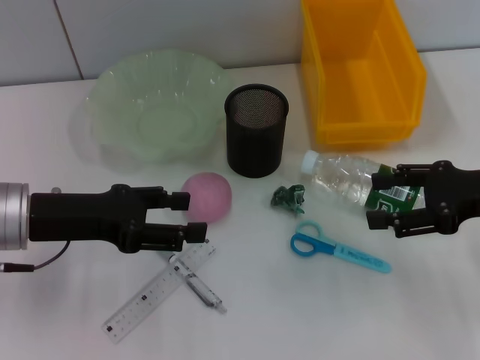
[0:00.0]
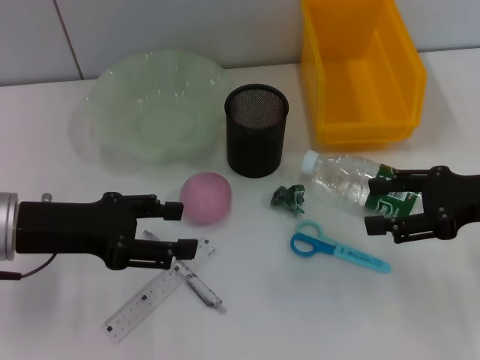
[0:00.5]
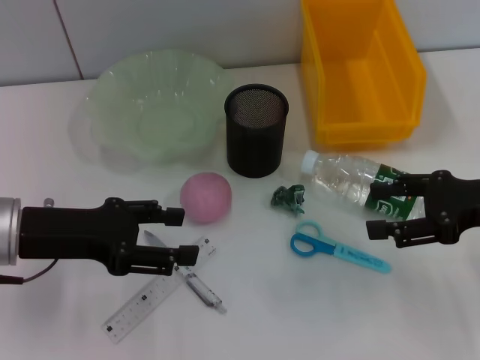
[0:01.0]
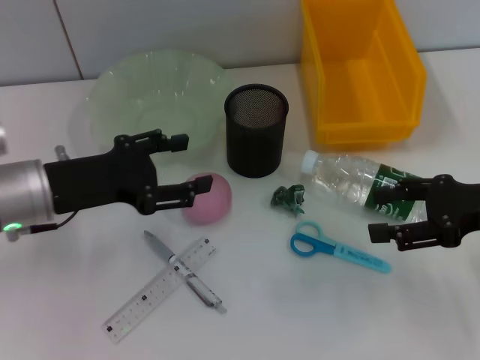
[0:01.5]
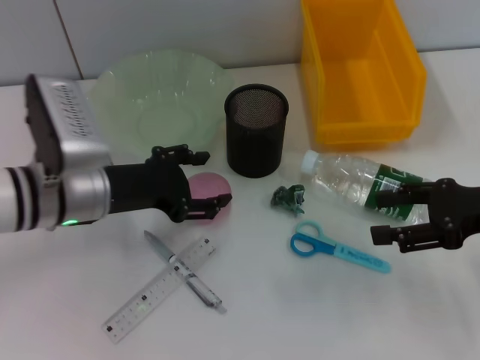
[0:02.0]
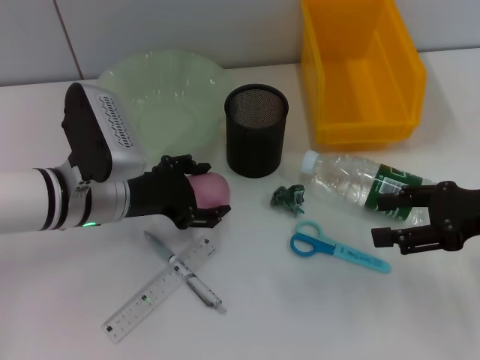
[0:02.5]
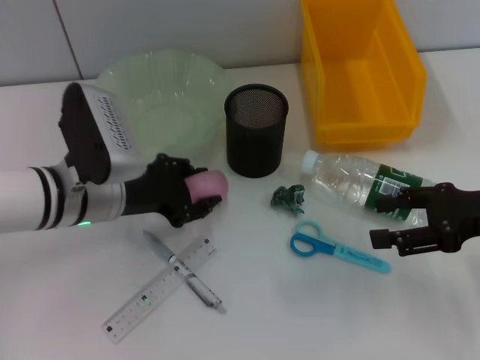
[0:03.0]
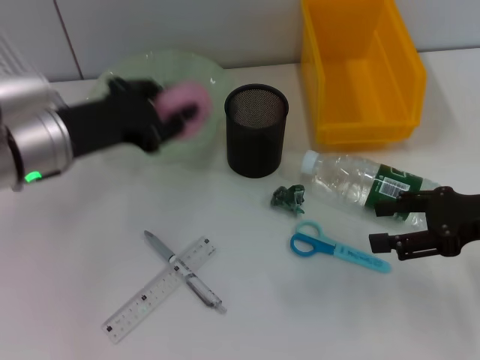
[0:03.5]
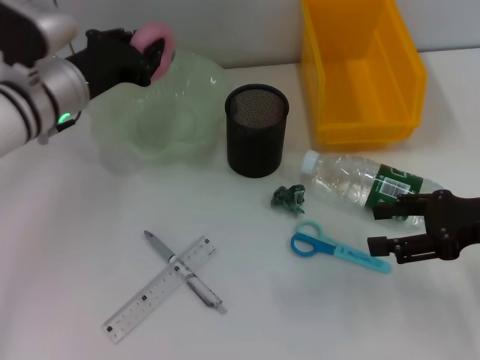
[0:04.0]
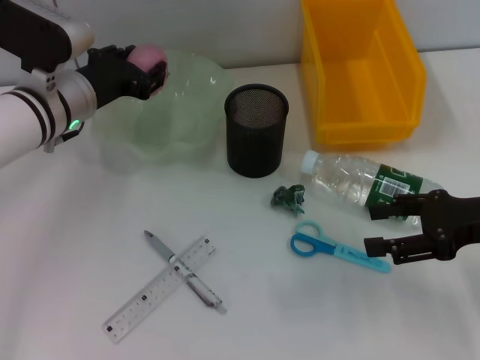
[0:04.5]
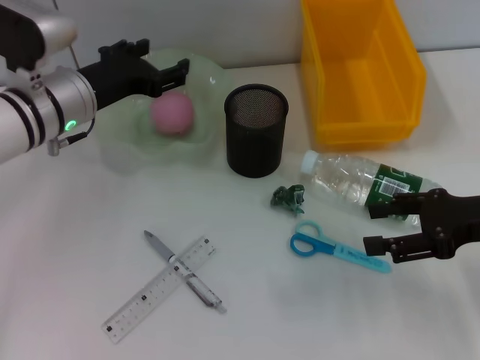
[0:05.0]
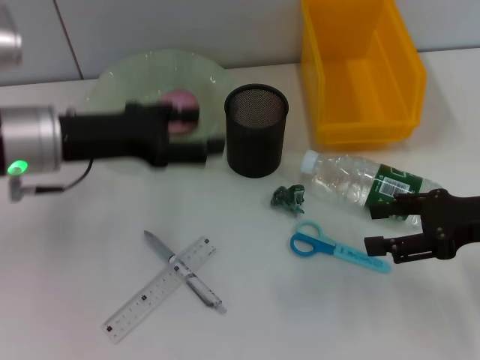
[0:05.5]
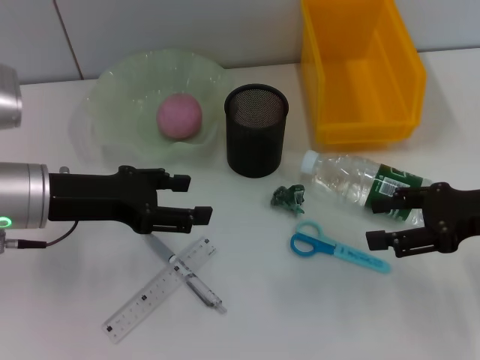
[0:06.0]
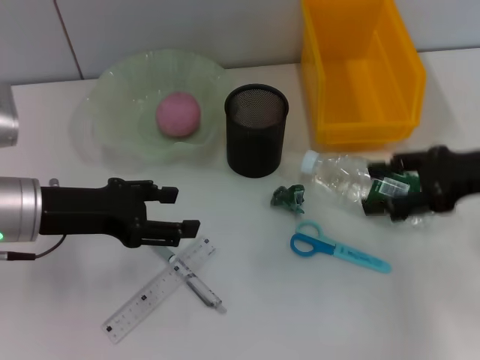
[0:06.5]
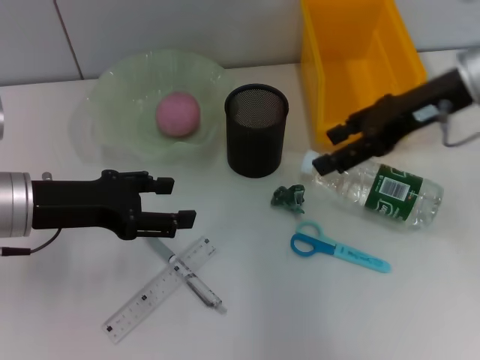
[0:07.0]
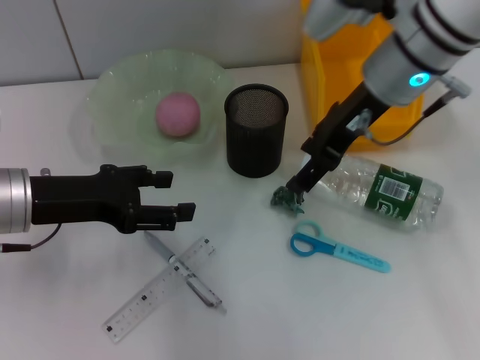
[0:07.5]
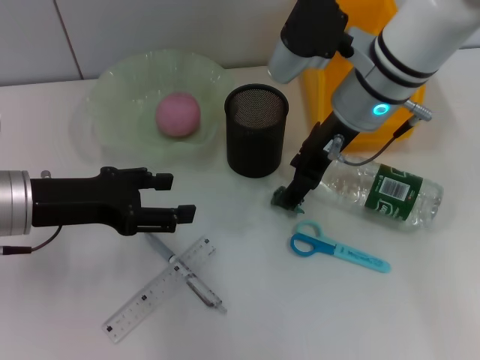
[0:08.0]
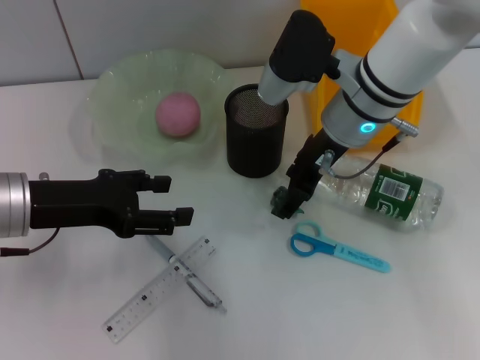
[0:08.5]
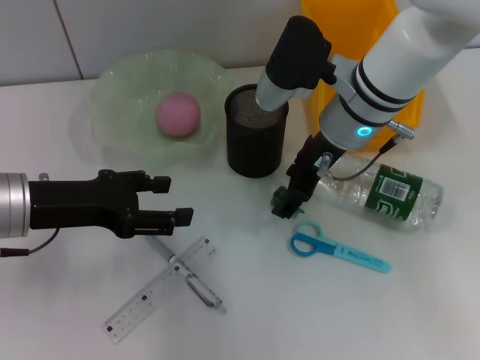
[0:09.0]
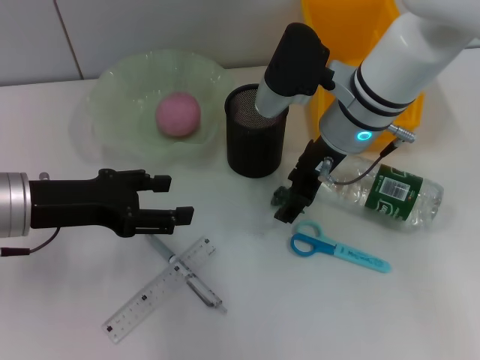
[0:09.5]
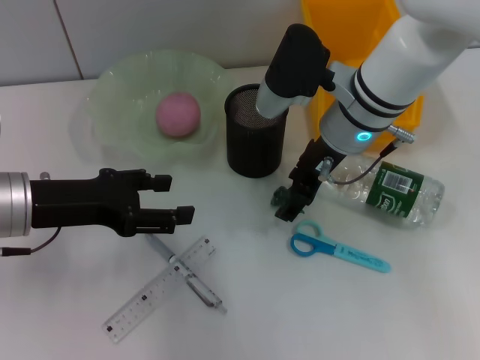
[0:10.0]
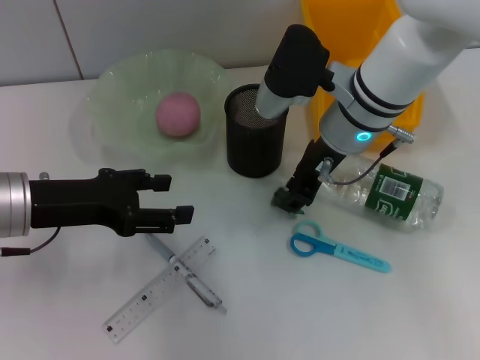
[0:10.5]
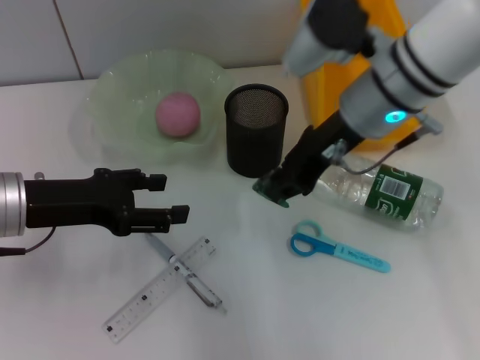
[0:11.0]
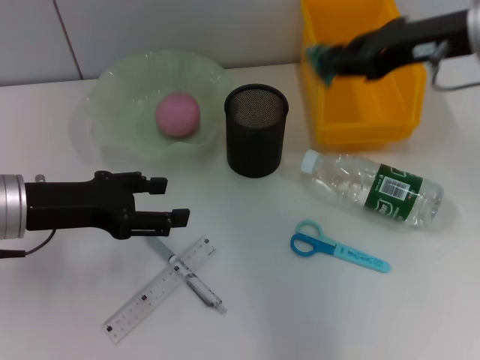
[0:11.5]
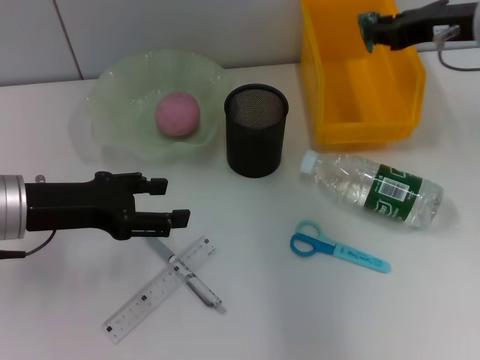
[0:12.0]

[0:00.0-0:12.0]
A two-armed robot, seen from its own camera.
Step, 0:00.0 to 0:02.5: Grab the peach with the left hand.
Step, 0:03.0 to 0:04.5: Place the peach into the fruit bowl with the left hand.
Step, 0:05.0 to 0:10.5: Grab the plastic with the right hand.
0:00.0 to 0:02.0: The left gripper goes approximately 5 cm to the right.
0:02.0 to 0:04.0: The left gripper heads forward, covering about 5 cm, and closes its fingers.
0:04.0 to 0:06.0: The left gripper shifts approximately 10 cm backward, and opens.
0:06.0 to 0:08.0: The right gripper heads to the left and forward, covering about 20 cm.
0:08.0 to 0:10.0: The grippers make only small movements.
0:10.0 to 0:12.0: The right gripper shifts approximately 15 cm to the right and upward, and closes up.

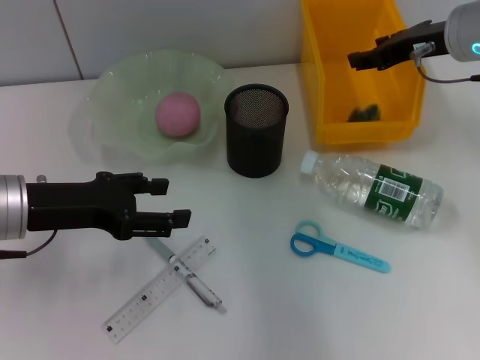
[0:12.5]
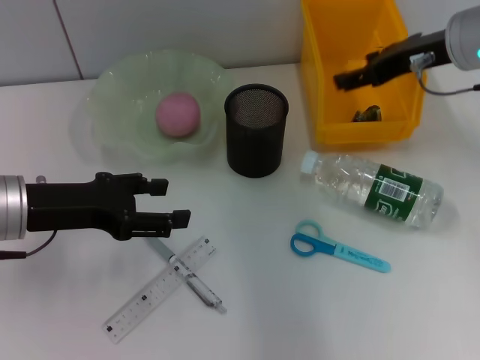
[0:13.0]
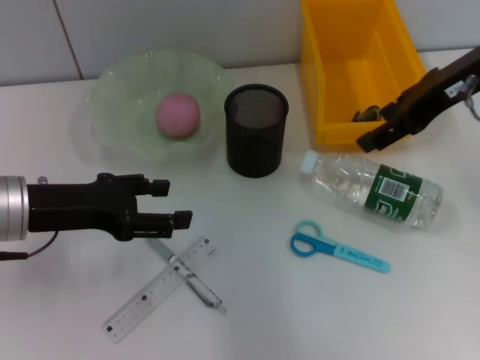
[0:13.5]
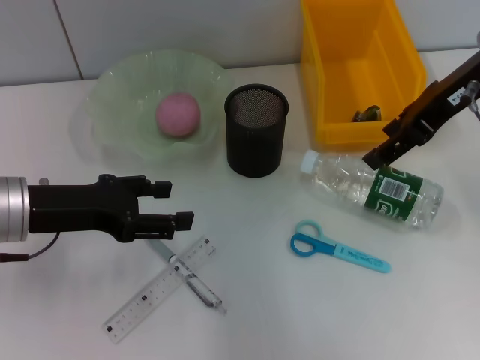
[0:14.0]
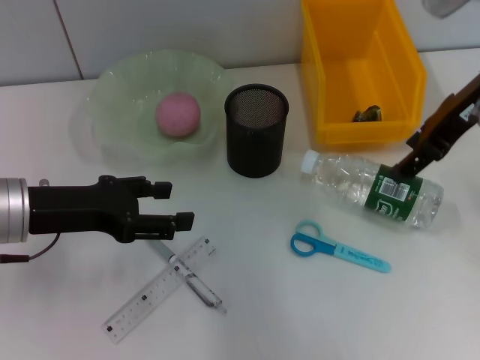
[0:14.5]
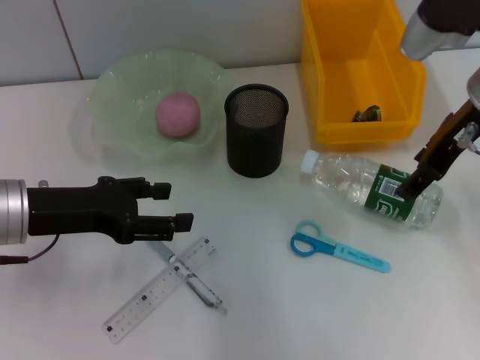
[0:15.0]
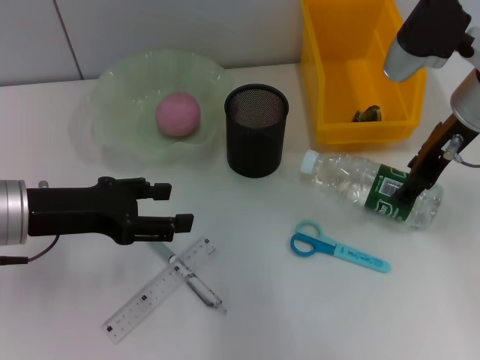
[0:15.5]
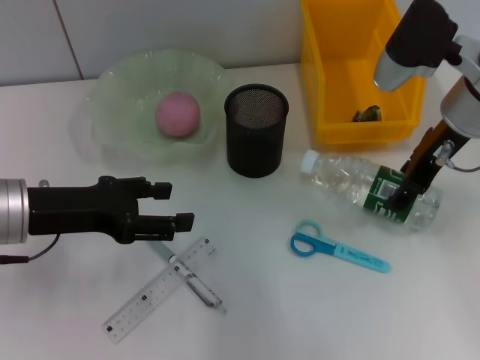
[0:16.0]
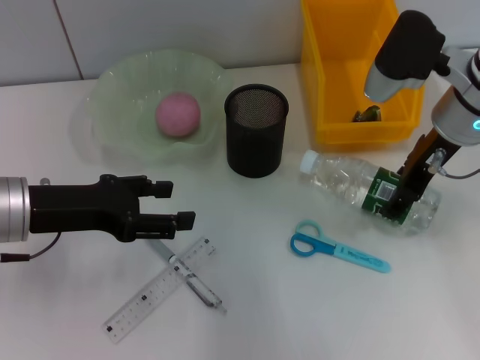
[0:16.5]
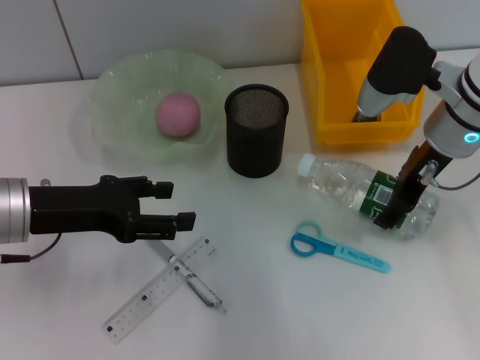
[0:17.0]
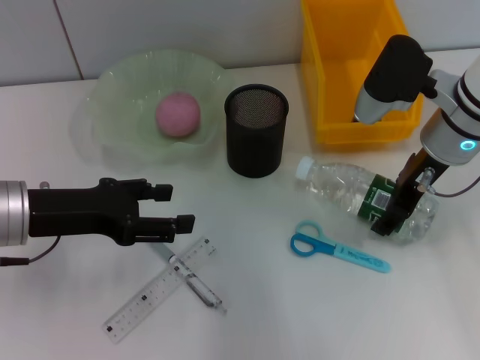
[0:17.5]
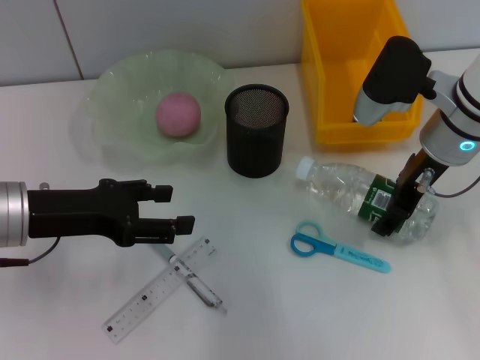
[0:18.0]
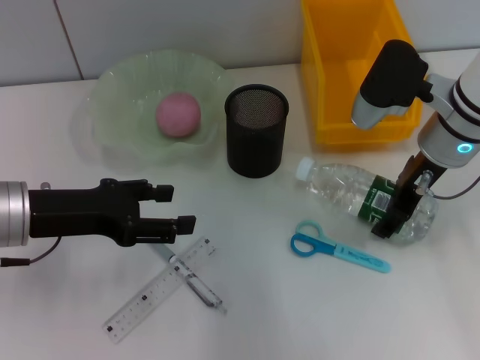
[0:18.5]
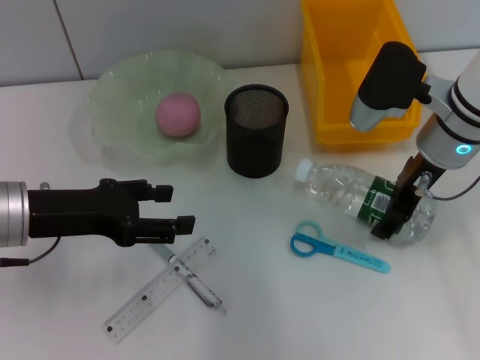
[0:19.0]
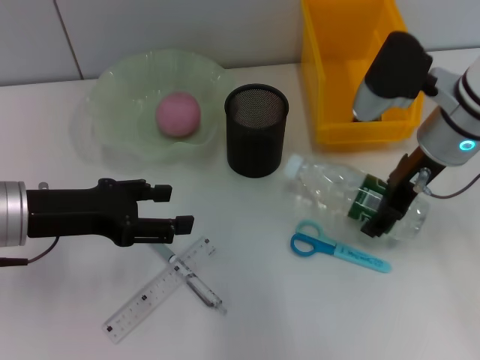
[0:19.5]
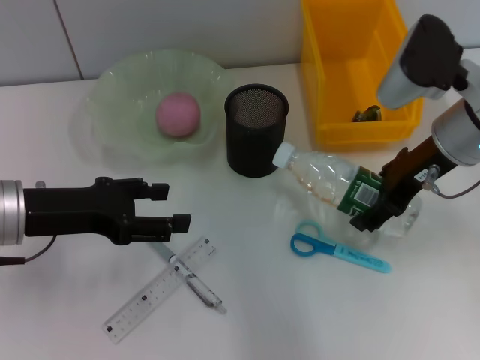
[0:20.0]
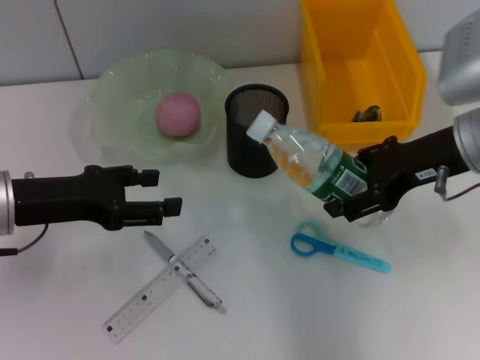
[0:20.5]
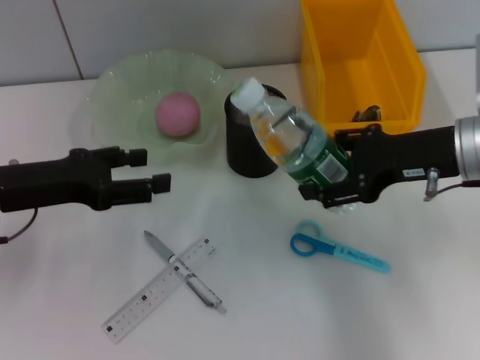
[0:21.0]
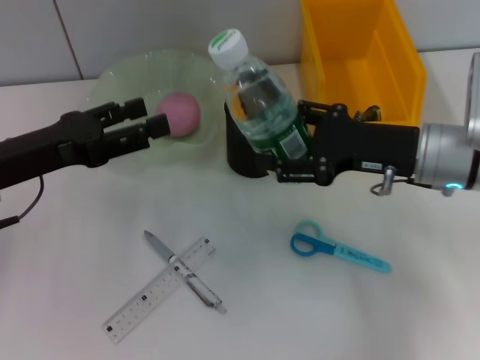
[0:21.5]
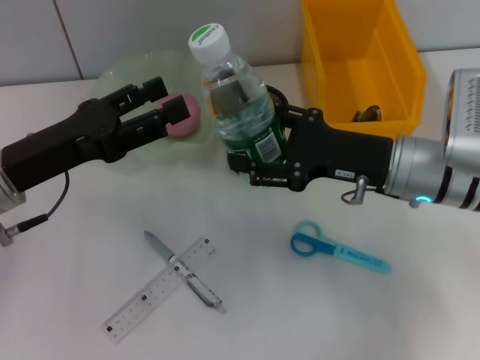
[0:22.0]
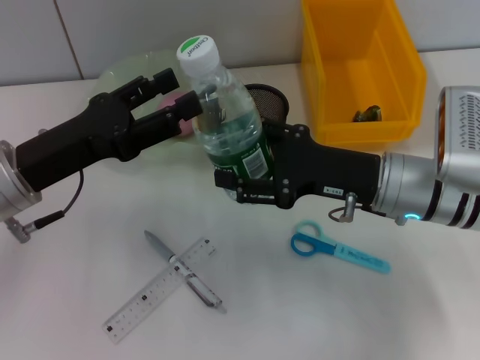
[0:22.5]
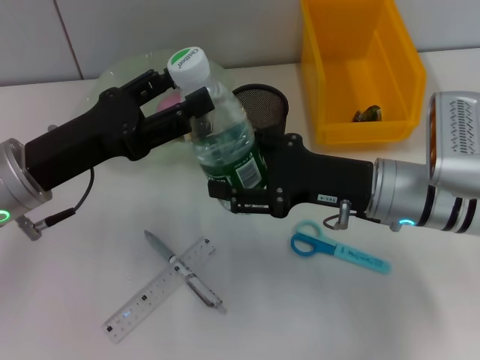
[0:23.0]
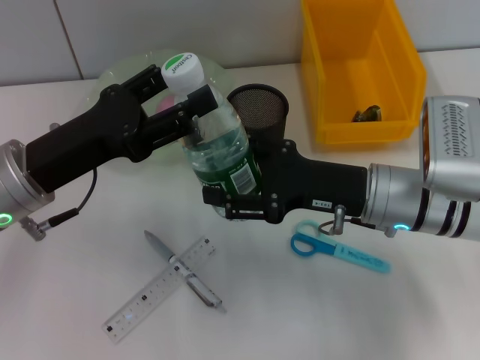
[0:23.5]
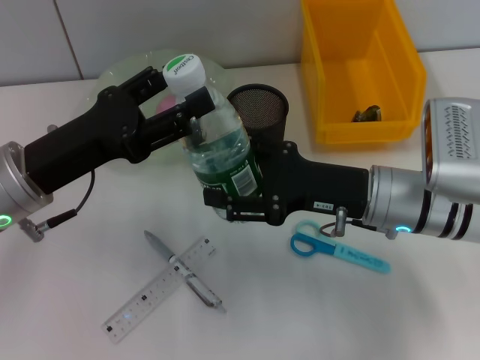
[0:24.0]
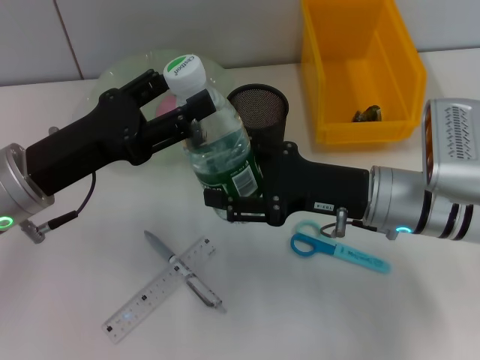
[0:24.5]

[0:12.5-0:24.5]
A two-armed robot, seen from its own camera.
Step, 0:13.0 to 0:18.5: Grab the water bottle with the right hand.
0:12.5 to 0:14.5: The right gripper shifts by about 5 cm, and opens its fingers.
0:14.5 to 0:16.5: The right gripper goes approximately 5 cm downward.
0:16.5 to 0:18.5: There are only small adjustments of the grippers.
0:18.5 to 0:20.5: The right gripper shifts by roughly 5 cm.
0:20.5 to 0:22.5: The right gripper travels downward and to the left by some 10 cm.
0:22.5 to 0:24.5: The grippers stay close to where they were, moving slightly.

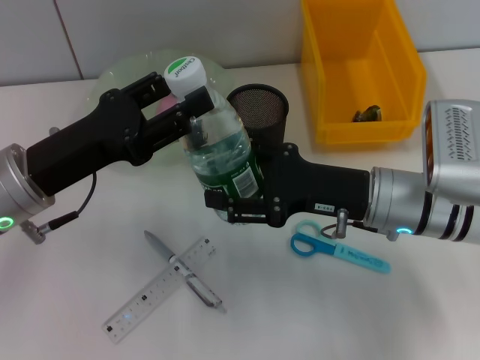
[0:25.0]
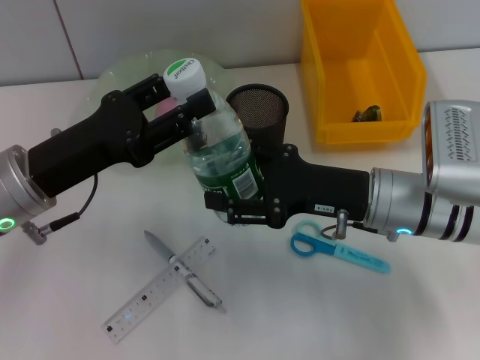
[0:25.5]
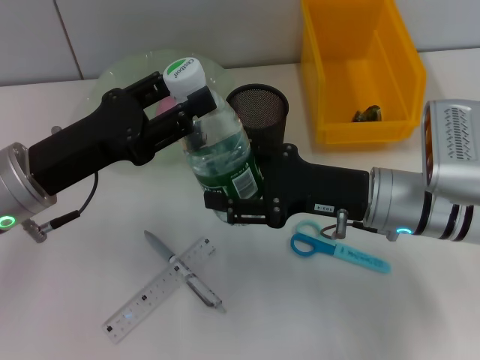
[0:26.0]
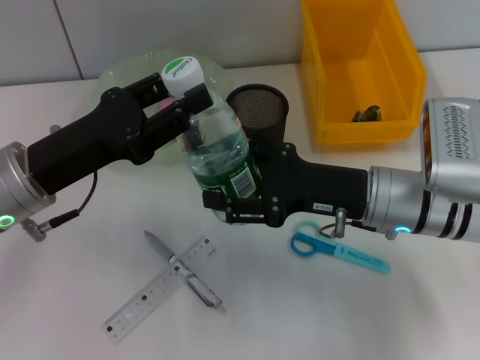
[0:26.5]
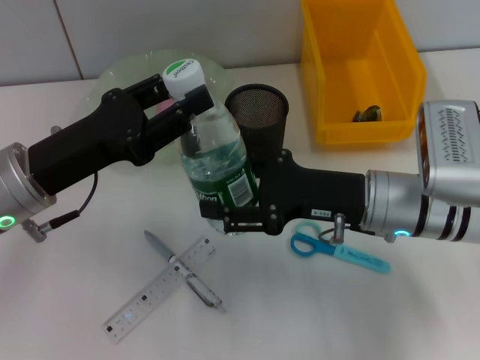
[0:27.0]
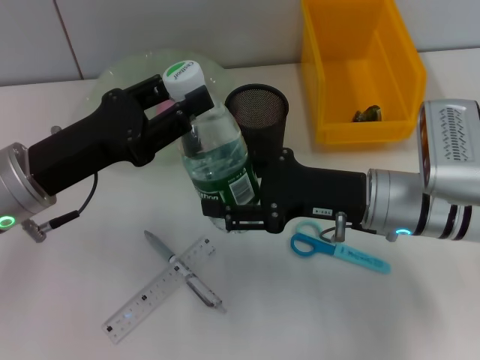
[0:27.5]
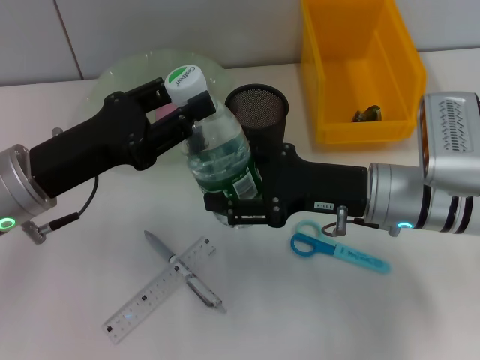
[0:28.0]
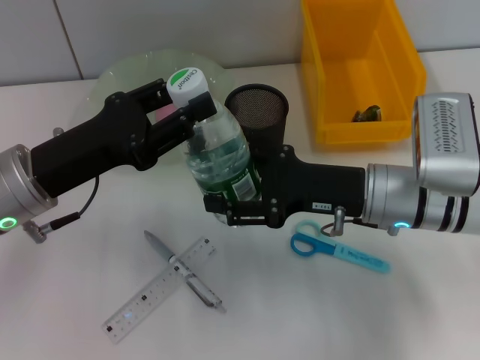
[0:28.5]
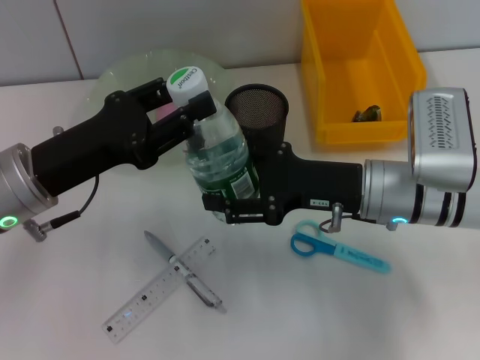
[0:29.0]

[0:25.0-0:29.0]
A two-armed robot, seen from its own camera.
0:25.0 to 0:27.0: The left gripper closes up.
0:27.0 to 0:29.0: Both grippers stay put.
